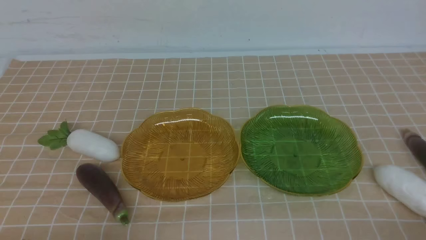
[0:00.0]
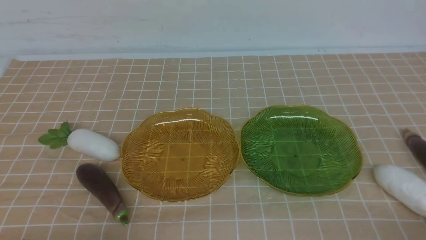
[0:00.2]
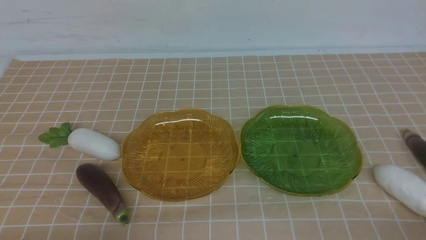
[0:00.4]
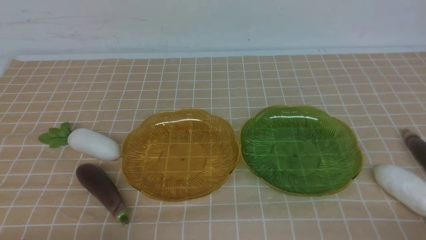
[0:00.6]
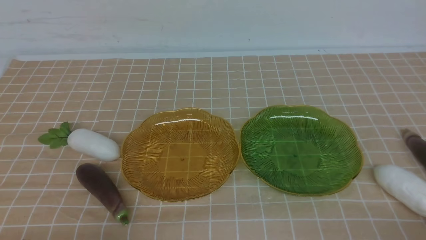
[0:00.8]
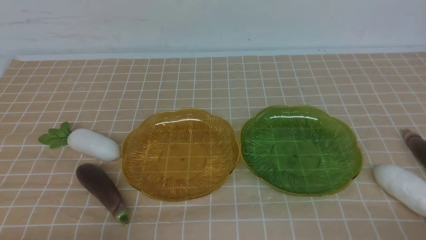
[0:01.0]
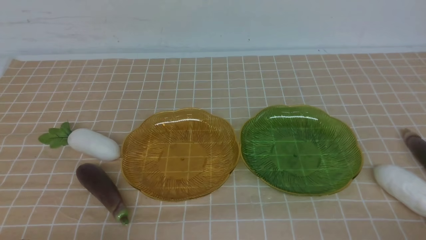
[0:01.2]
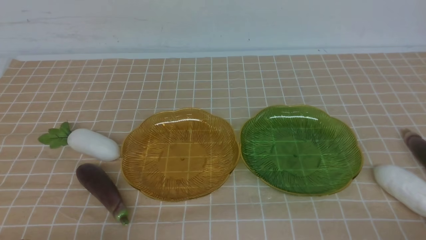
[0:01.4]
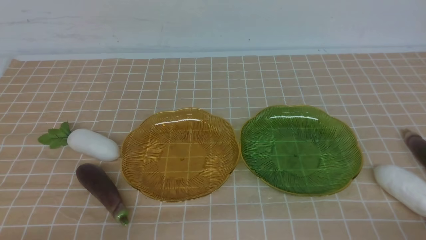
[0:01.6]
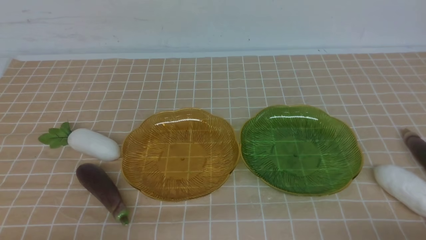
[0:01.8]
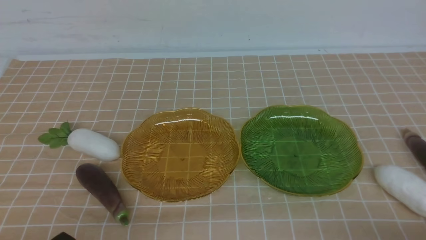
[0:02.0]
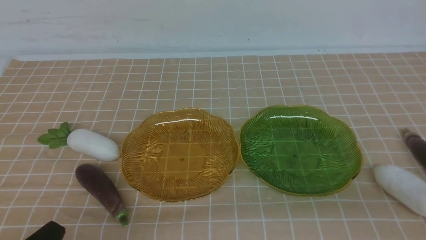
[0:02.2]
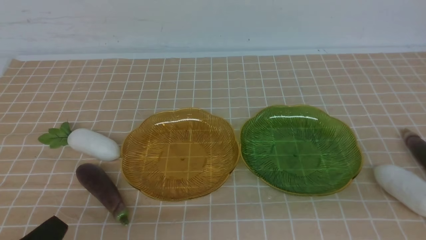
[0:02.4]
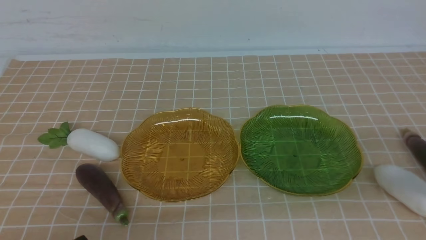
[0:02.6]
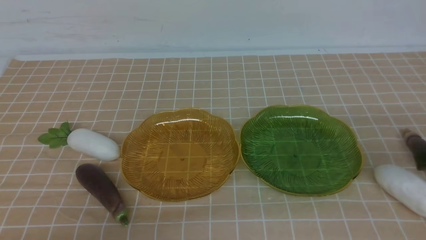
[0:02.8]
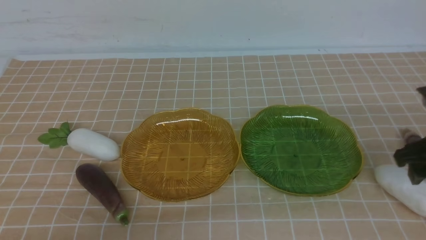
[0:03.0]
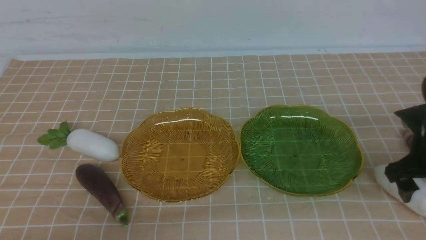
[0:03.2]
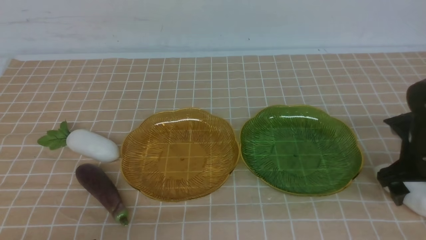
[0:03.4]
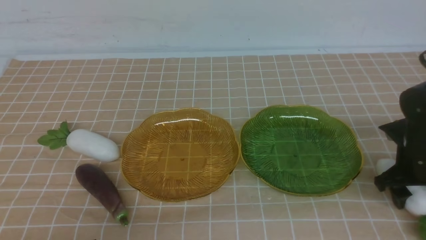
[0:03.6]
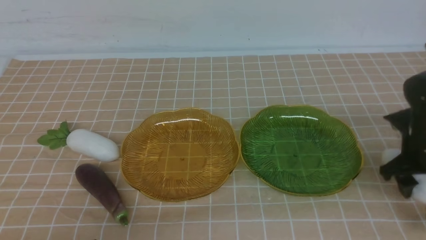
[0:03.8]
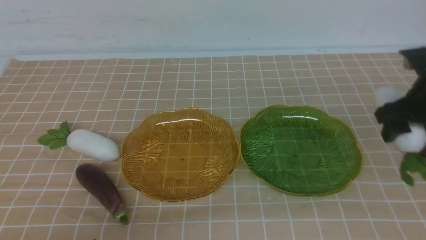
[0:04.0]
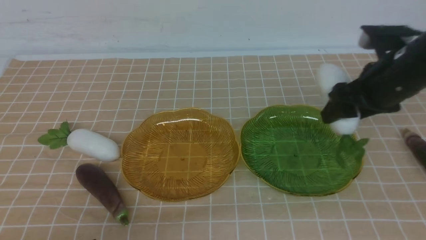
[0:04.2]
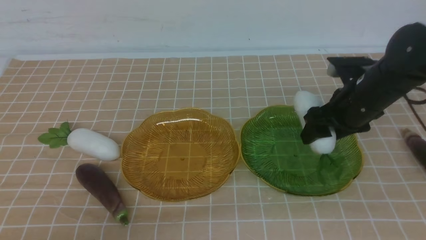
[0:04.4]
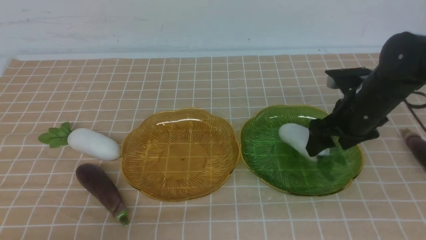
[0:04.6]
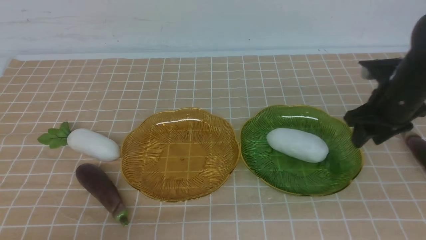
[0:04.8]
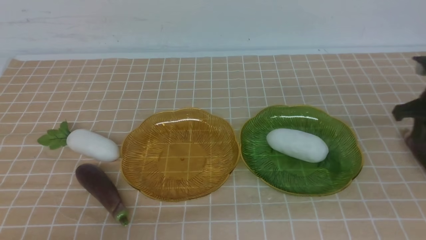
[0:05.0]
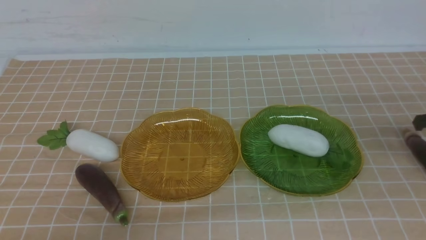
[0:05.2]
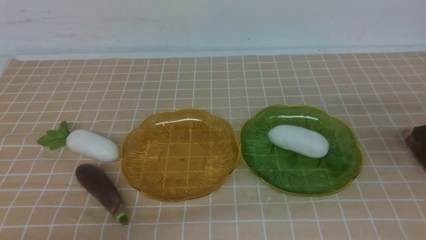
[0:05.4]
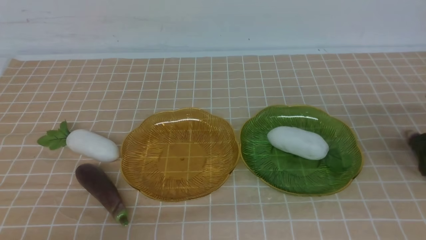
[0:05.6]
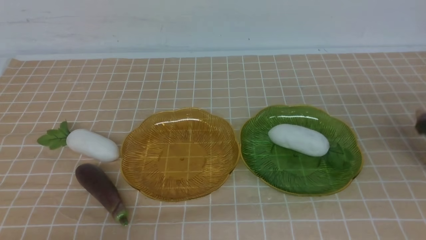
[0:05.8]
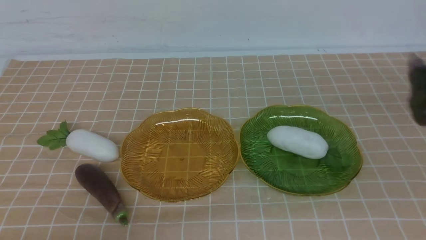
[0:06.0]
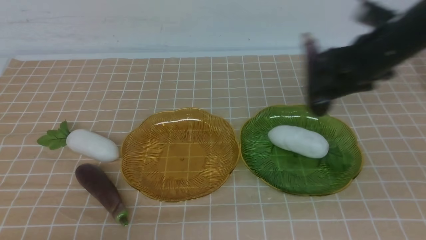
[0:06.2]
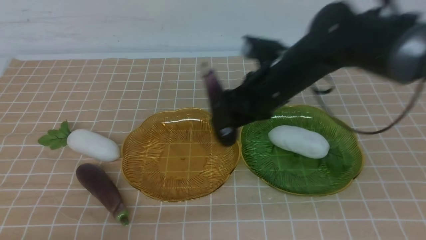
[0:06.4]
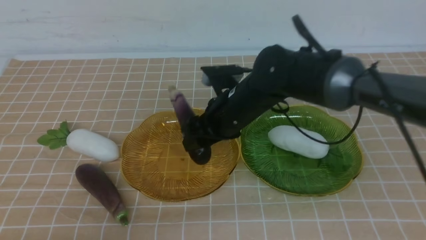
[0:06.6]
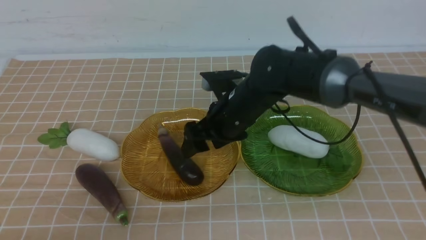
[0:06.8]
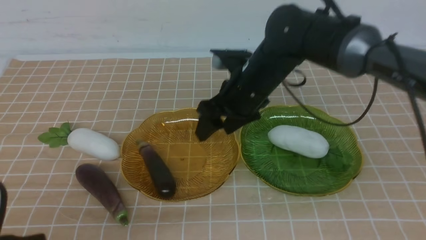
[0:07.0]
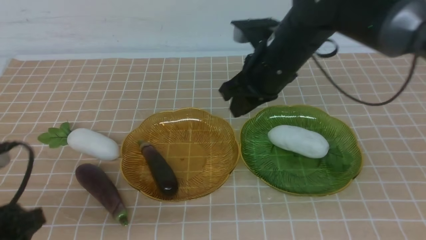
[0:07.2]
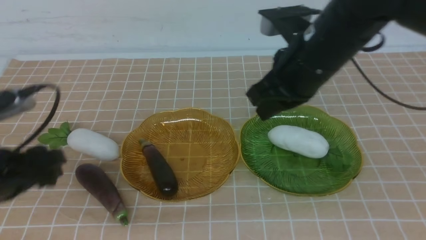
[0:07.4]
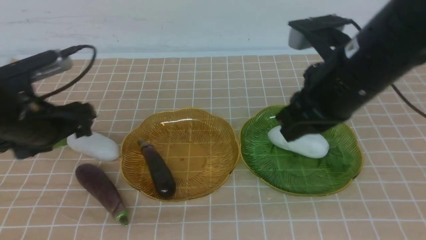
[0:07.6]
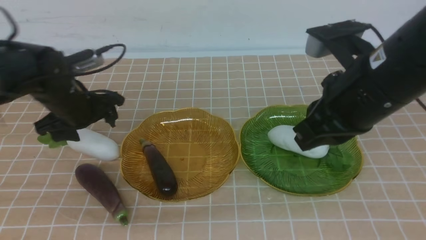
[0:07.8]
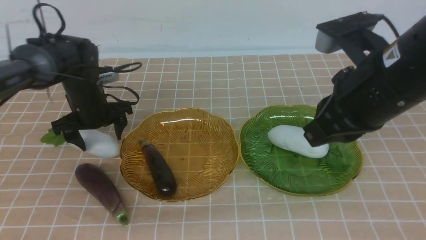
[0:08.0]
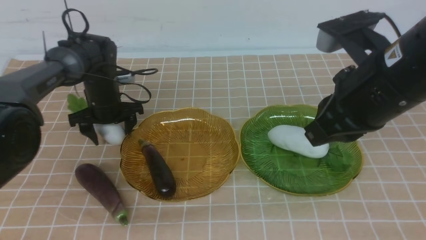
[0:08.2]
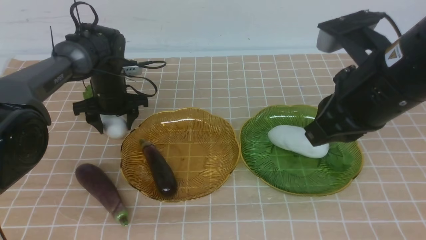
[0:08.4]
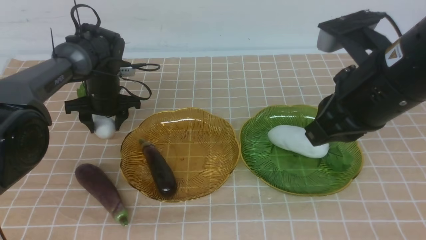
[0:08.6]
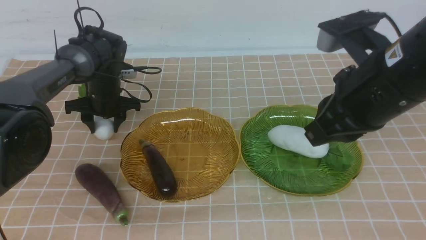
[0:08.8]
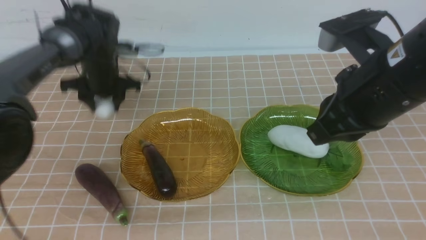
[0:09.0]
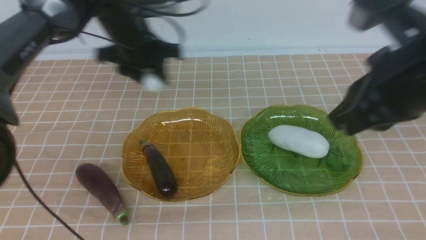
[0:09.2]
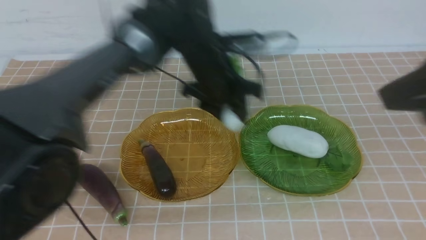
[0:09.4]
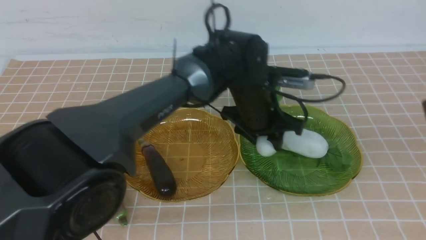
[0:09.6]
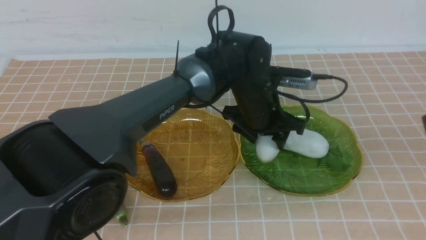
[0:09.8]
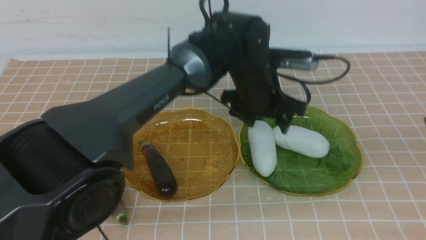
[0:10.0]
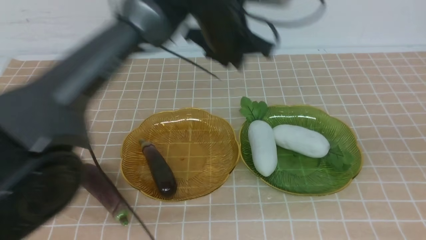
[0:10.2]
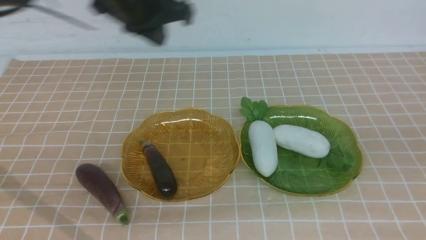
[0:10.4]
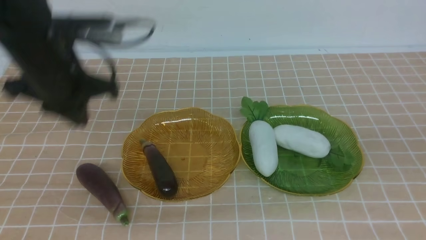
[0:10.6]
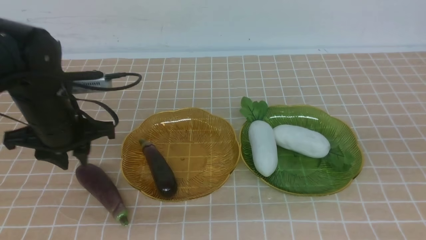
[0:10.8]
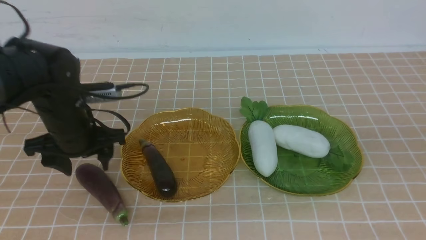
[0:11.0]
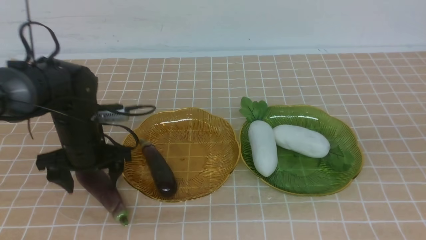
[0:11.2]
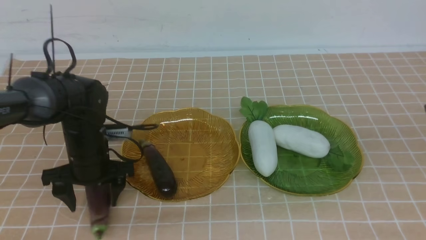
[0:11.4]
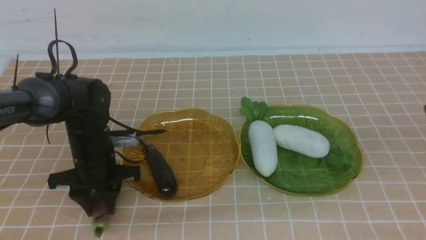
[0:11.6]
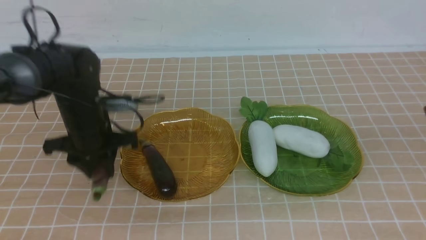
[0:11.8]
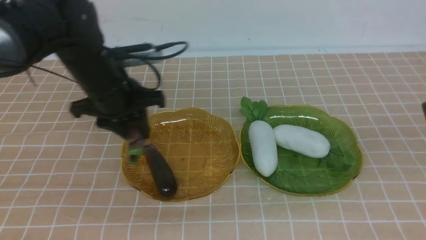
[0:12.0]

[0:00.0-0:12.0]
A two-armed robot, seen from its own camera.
Step, 0:00.0 to 0:04.8: use the right arm to grab a radish and put it into the right plate.
Step, 0:05.0 to 0:07.0: use the right arm to grab an eggplant and put it into the left plate.
Step, 0:07.2 to 0:10.2: use the left arm to grab a radish and put it into the right plate.
0:01.6 to 0:03.0: The right gripper is displaced forward by approximately 20 cm, and opens up.
0:03.0 to 0:04.4: The right gripper shifts roughly 10 cm to the left and forward, and reaches approximately 10 cm downward, then returns.
0:04.4 to 0:06.0: The right gripper moves to the right, approximately 10 cm, and closes, then opens again.
0:06.0 to 0:07.6: The left gripper moves forward, about 20 cm, and opens up, while the right gripper heads to the left, backward and upward, covering approximately 25 cm, and closes.
0:07.6 to 0:09.0: The right gripper travels backward by roughly 5 cm. Meanwhile the left gripper shifts approximately 20 cm forward, and closes its fingers.
0:09.0 to 0:10.4: The right gripper shifts some 15 cm backward, to the right and upward. Meanwhile the left gripper is displaced upward and backward by roughly 15 cm, goes to the right and returns, some 25 cm each way, and closes.
0:10.4 to 0:12.0: The left gripper travels downward by approximately 10 cm, and opens.

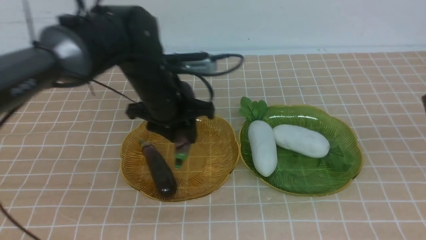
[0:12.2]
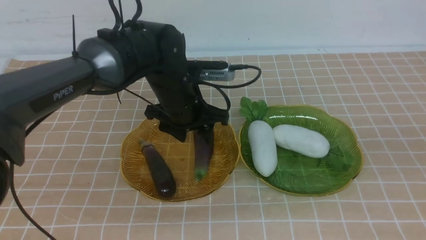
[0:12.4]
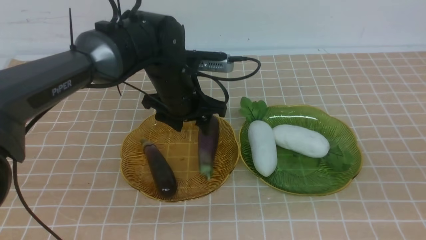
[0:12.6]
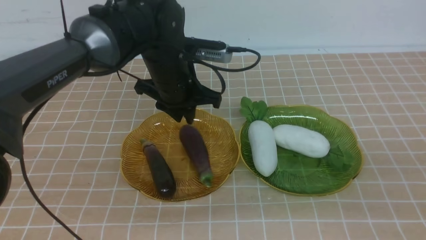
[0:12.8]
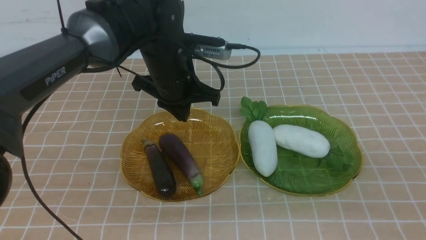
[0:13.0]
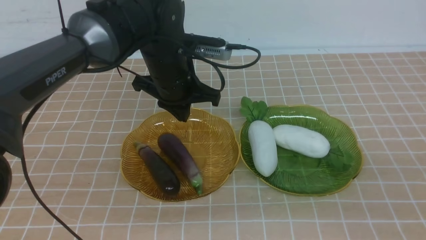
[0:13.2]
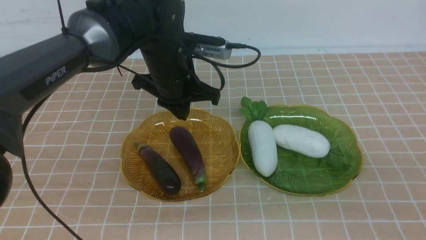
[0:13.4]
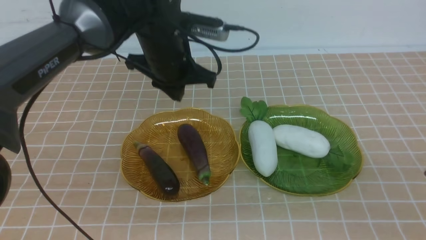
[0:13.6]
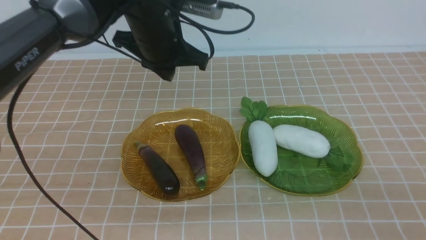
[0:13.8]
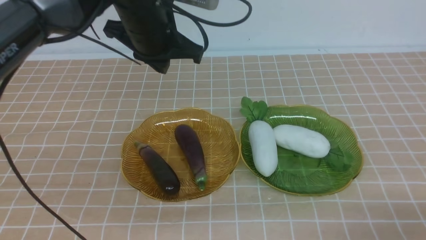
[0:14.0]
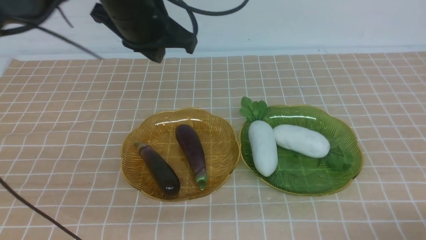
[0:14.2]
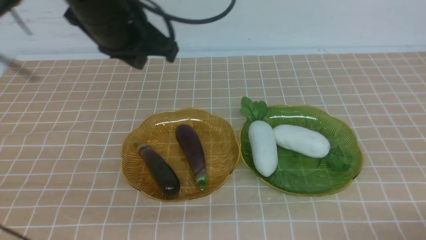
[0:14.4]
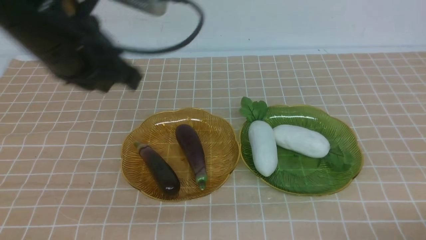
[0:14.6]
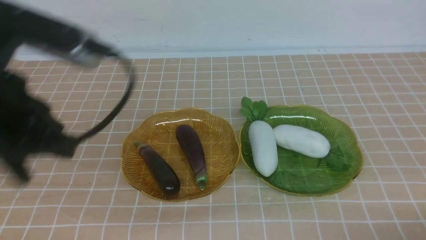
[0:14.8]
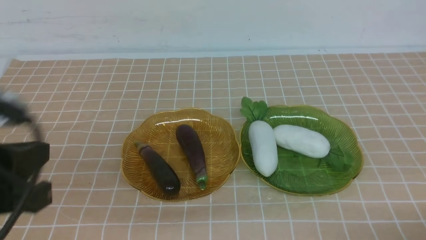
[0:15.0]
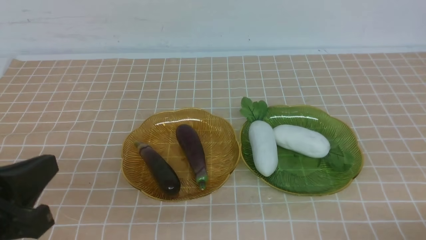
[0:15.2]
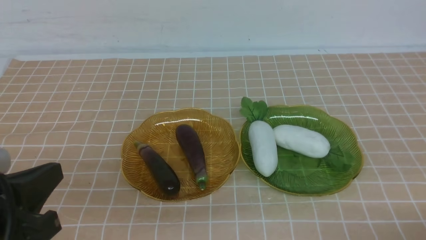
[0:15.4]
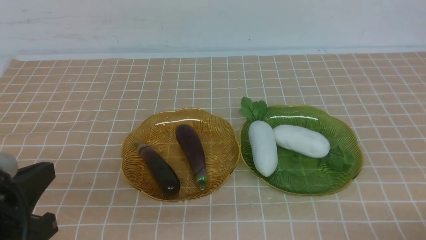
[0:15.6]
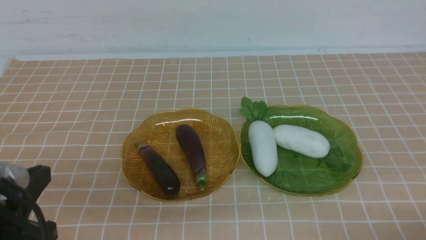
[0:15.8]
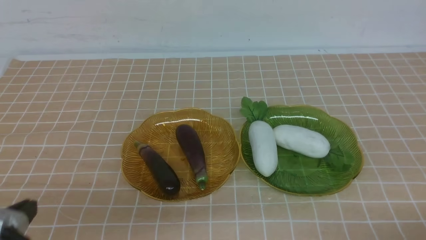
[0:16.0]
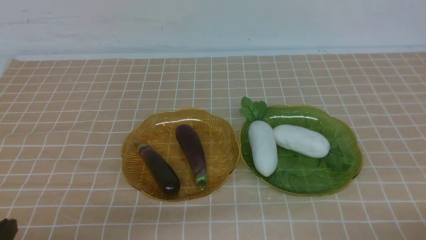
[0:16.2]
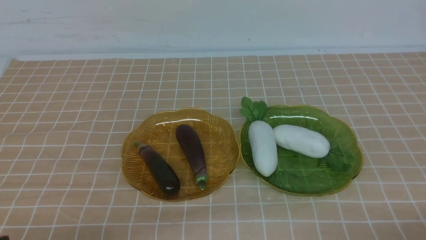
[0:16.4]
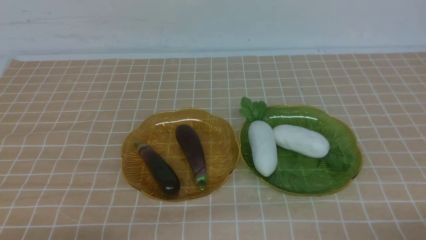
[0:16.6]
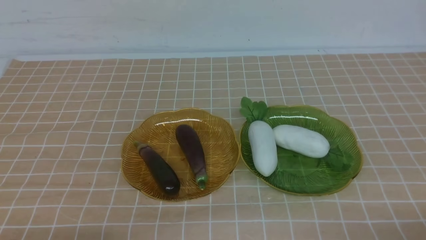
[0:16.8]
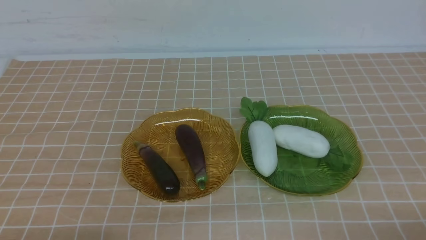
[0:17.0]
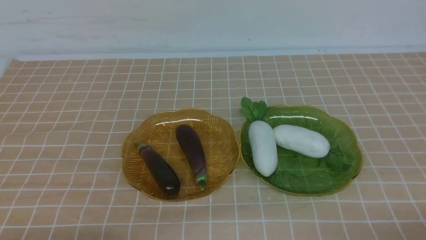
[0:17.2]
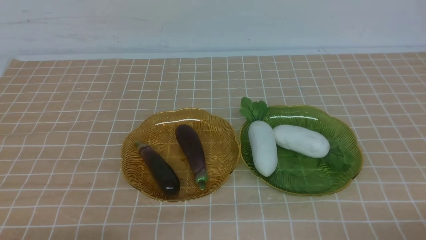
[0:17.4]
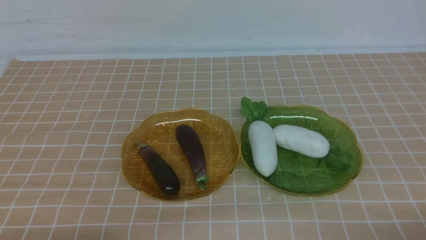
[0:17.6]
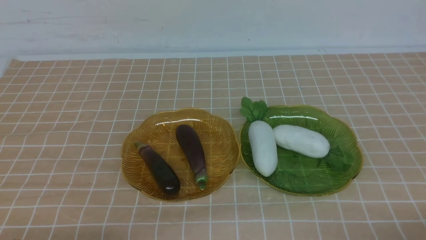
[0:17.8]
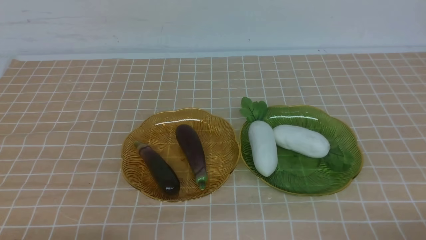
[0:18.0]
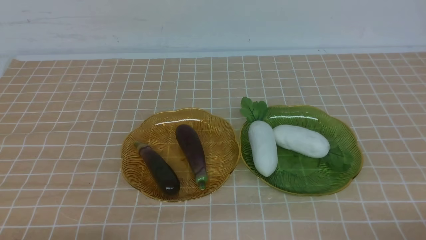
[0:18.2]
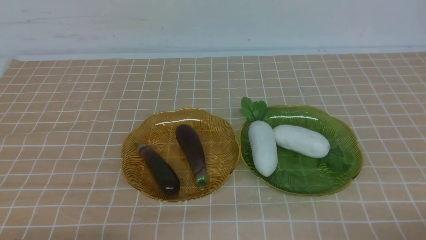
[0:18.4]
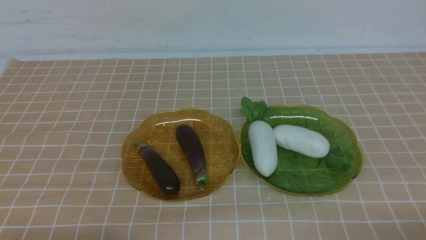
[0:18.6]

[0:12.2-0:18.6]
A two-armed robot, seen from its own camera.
0:12.2 to 0:13.8: The right gripper shifts approximately 20 cm downward. Meanwhile the left gripper is displaced upward by approximately 10 cm, and closes its fingers.
0:13.8 to 0:15.4: The left gripper shifts about 30 cm backward and to the left; the right gripper moves downward, roughly 5 cm.
0:15.4 to 0:17.0: The left gripper moves downward, approximately 10 cm.
0:17.0 to 0:18.6: Neither gripper changes place.
